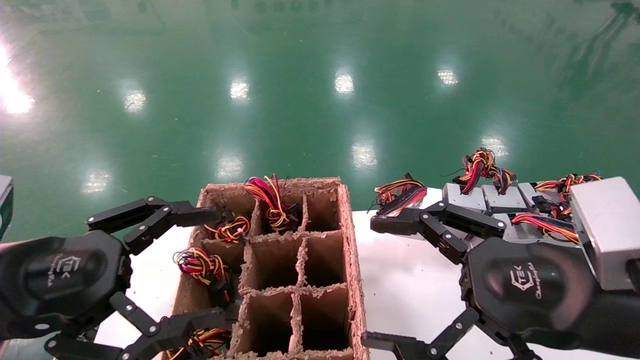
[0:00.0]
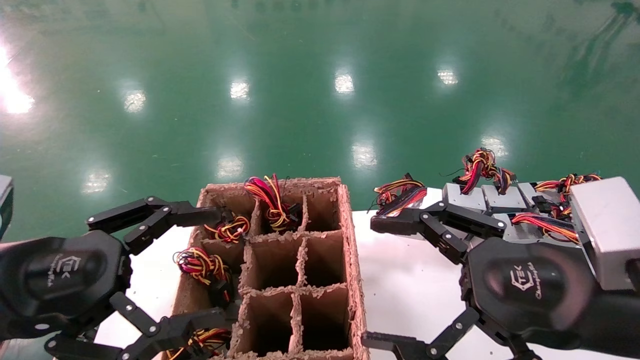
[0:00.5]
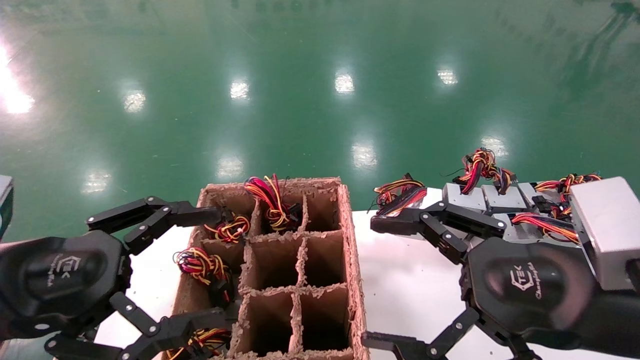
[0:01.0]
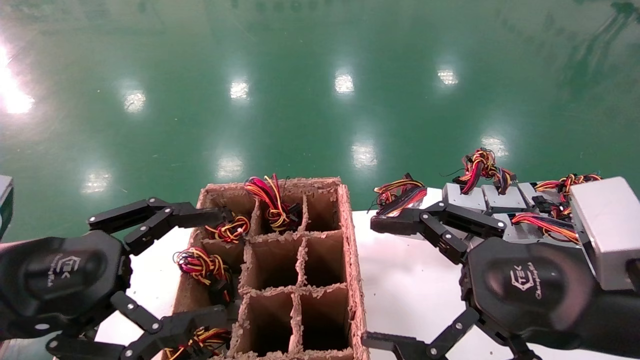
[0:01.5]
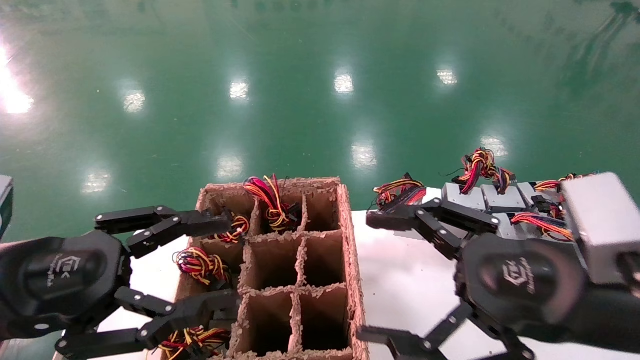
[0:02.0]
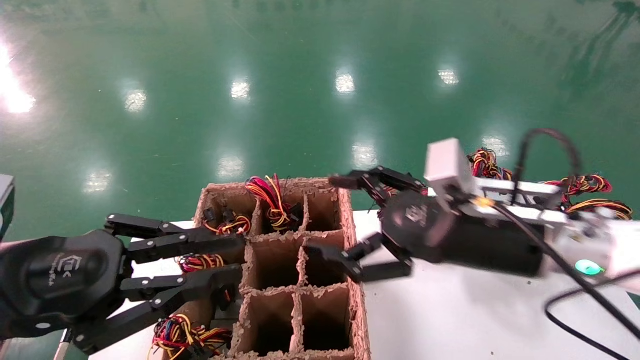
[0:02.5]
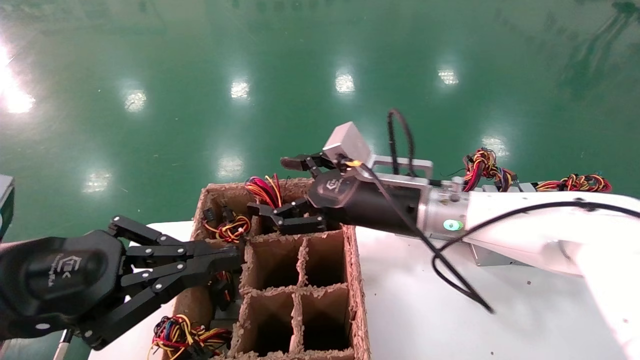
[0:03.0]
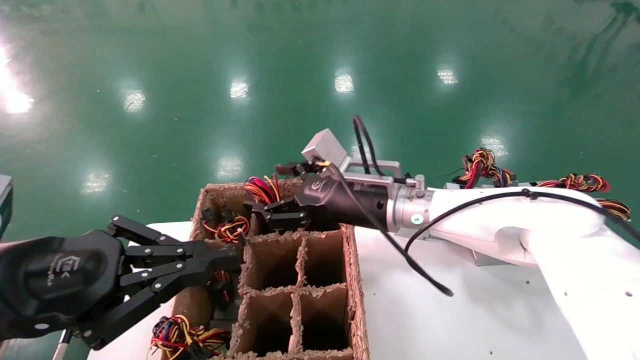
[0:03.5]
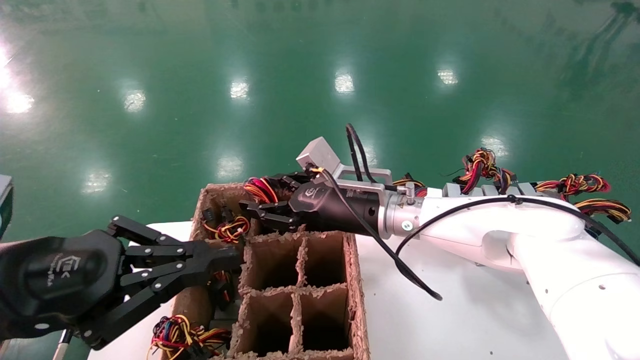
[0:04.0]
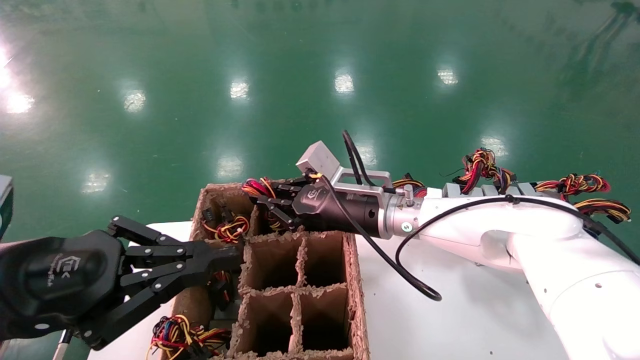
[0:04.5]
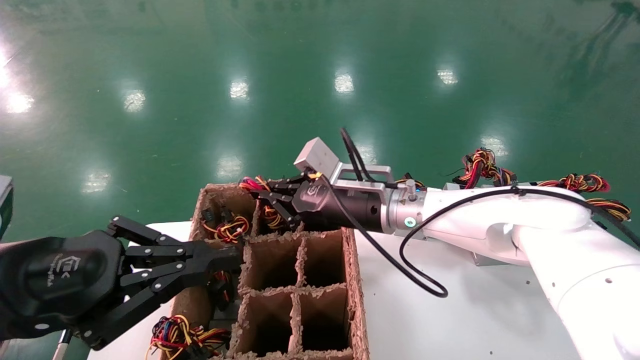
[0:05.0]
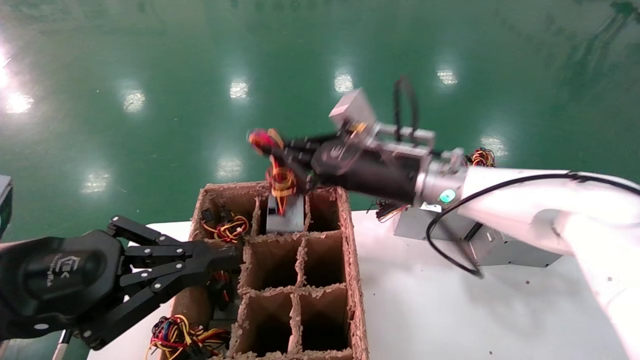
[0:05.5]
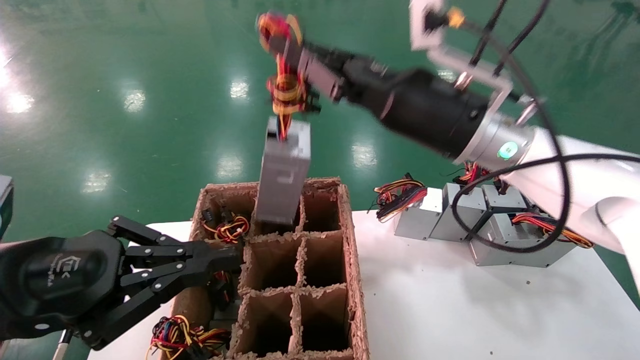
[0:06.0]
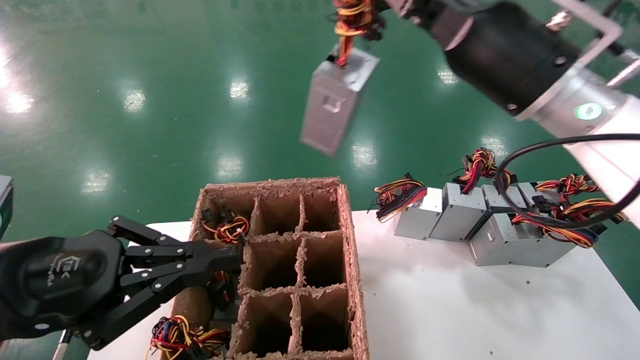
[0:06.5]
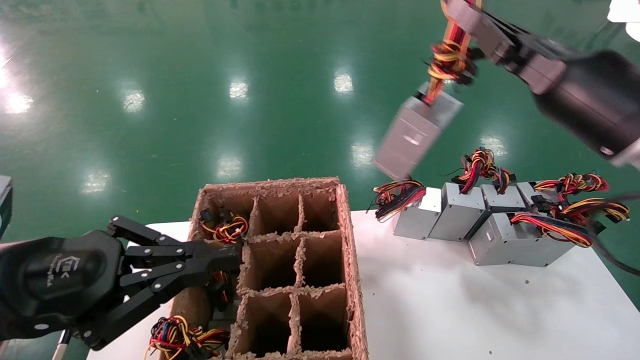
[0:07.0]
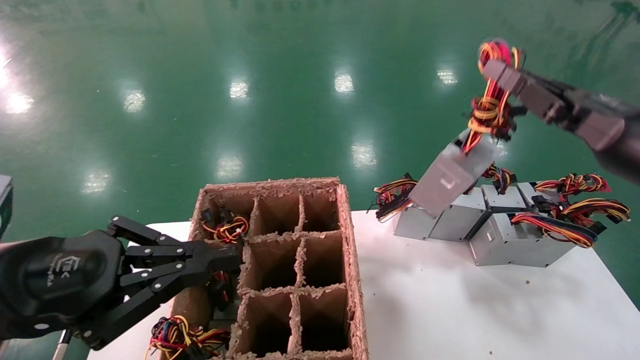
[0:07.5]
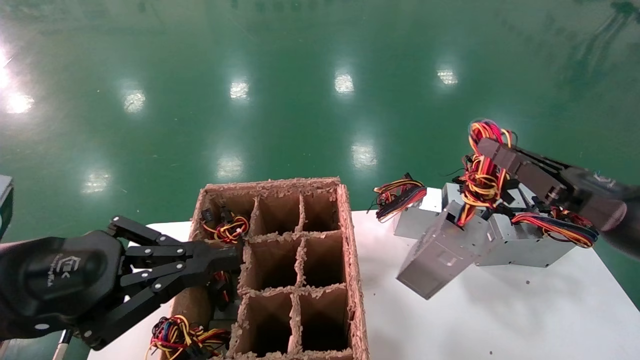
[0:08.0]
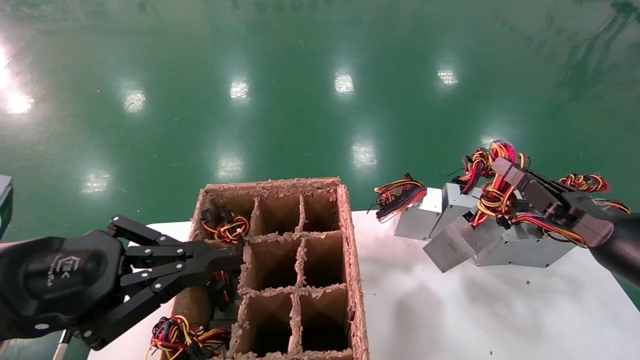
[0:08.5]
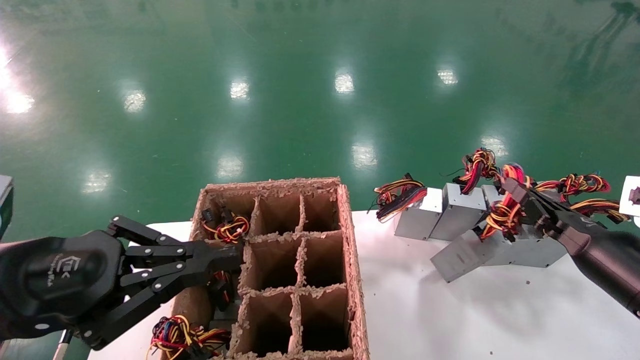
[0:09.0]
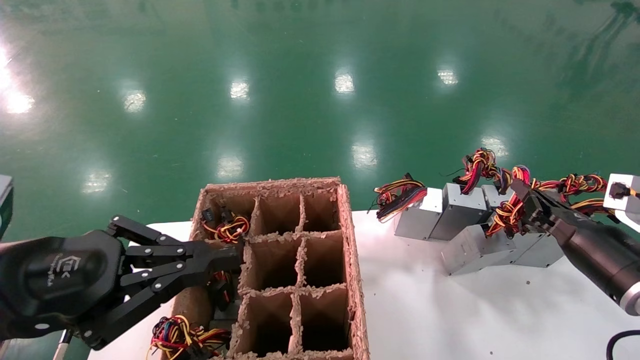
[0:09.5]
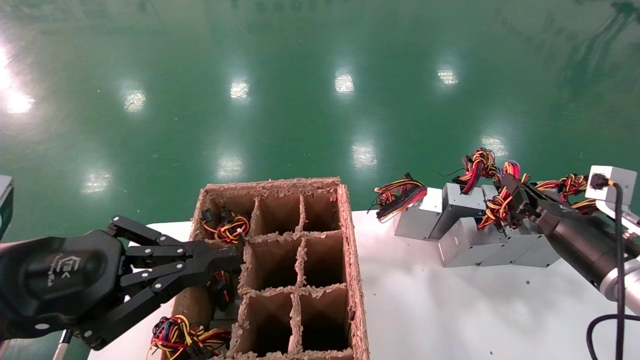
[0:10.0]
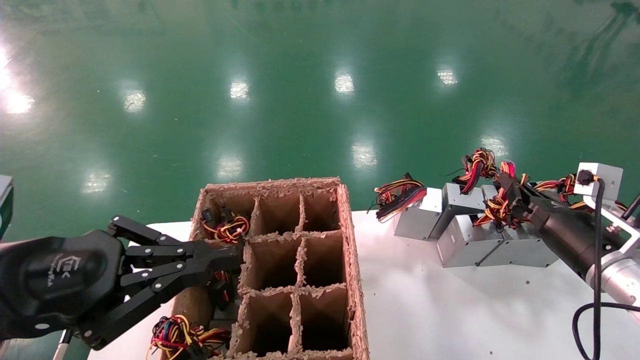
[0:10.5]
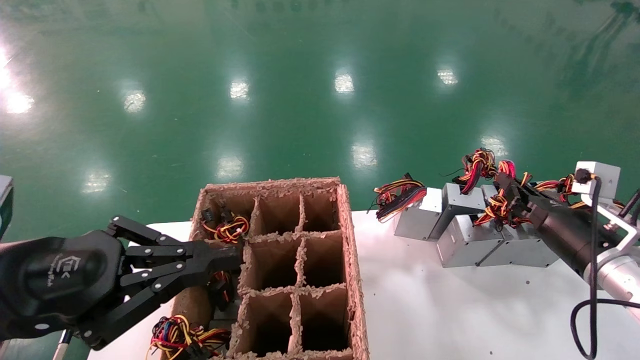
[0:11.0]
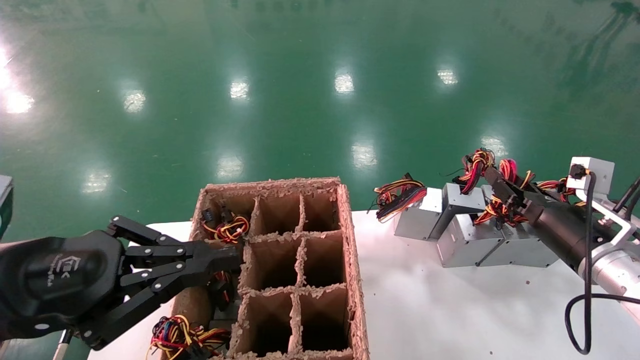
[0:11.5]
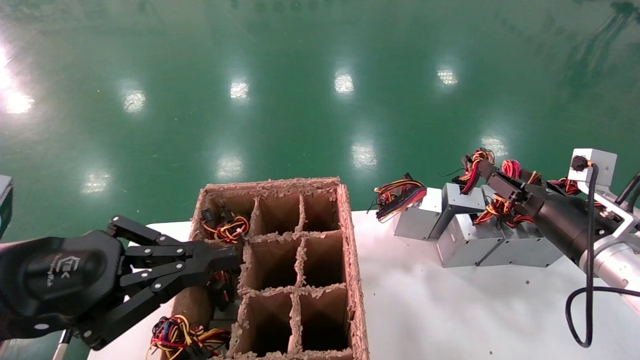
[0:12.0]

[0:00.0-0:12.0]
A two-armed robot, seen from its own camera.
Step, 0:02.5 to 0:04.5: Grab the main unit power supply from the containment box.
0:00.0 to 0:02.0: The grippers move only a little.
0:02.0 to 0:04.0: The left gripper closes up. The right gripper shifts some 25 cm forward and to the left.
0:04.0 to 0:06.0: The right gripper travels upward, backward and to the right by roughly 15 cm, and closes its fingers.
0:06.0 to 0:08.0: The right gripper shifts some 25 cm to the right, downward and backward.
0:08.0 to 0:10.0: The right gripper moves forward and downward, approximately 15 cm.
0:10.0 to 0:12.0: The right gripper opens.

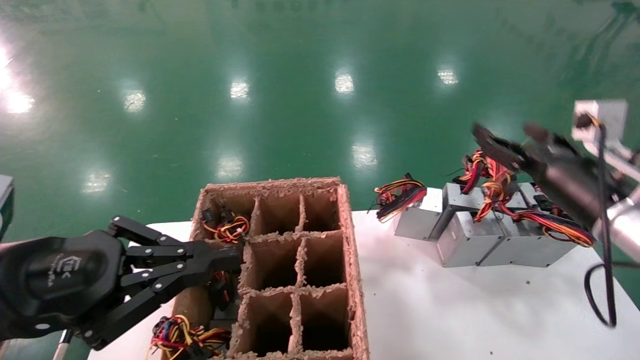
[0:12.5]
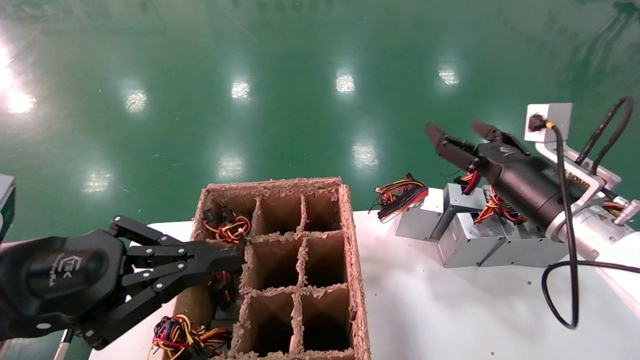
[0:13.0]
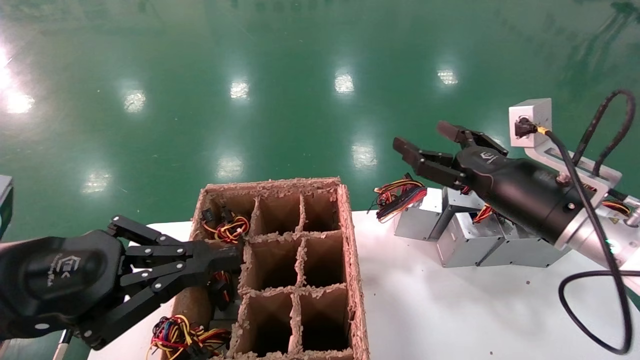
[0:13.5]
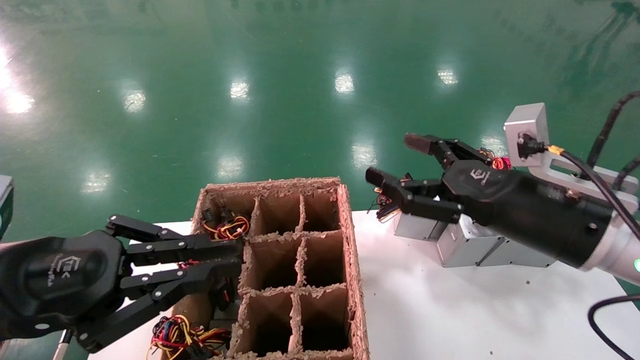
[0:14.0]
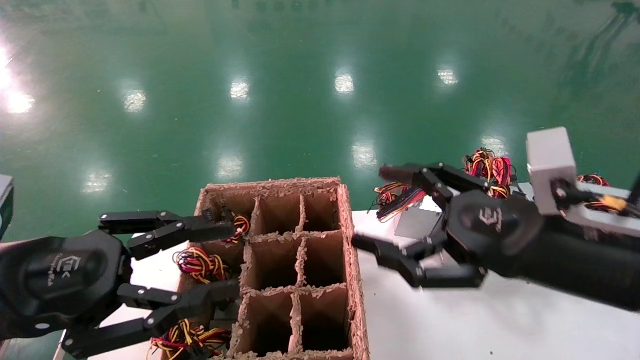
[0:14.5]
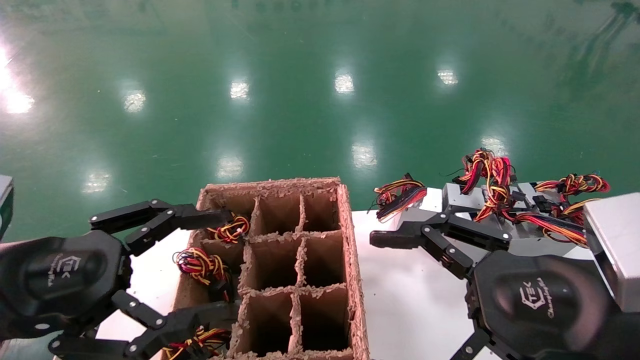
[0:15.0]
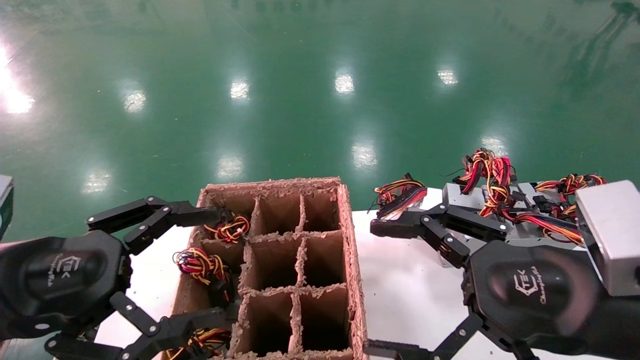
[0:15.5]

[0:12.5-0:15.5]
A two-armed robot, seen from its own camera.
0:12.5 to 0:14.0: The right gripper is displaced to the left and backward by about 10 cm.
0:14.0 to 0:15.5: The right gripper is displaced backward by about 10 cm; the left gripper opens.

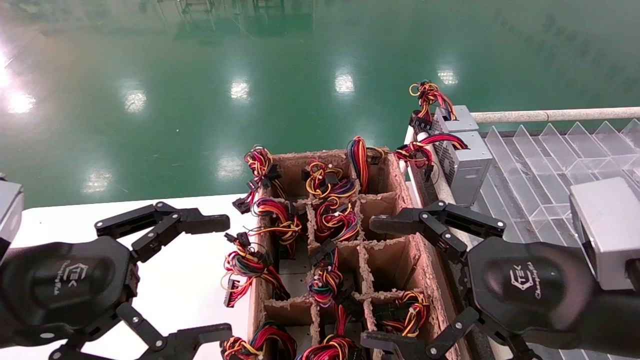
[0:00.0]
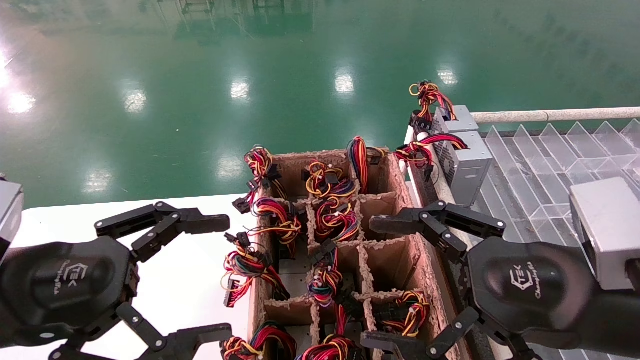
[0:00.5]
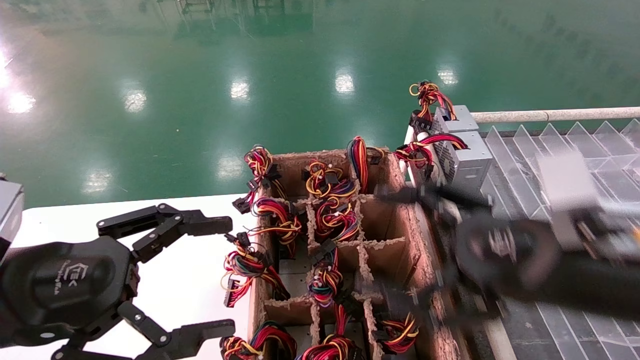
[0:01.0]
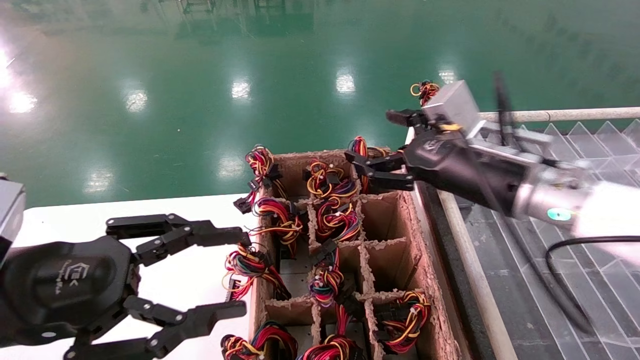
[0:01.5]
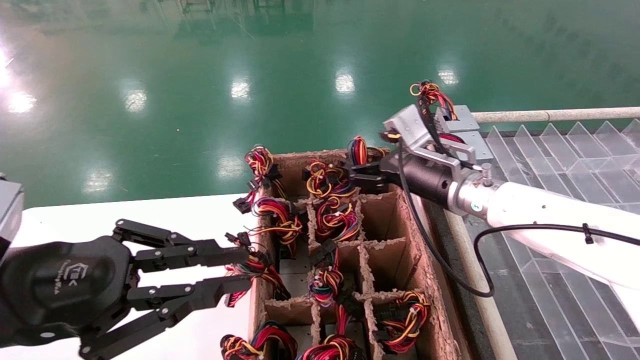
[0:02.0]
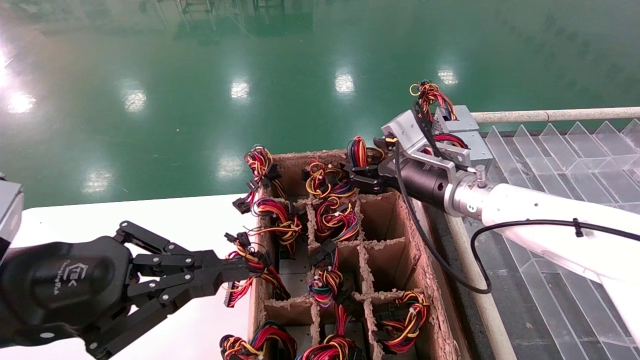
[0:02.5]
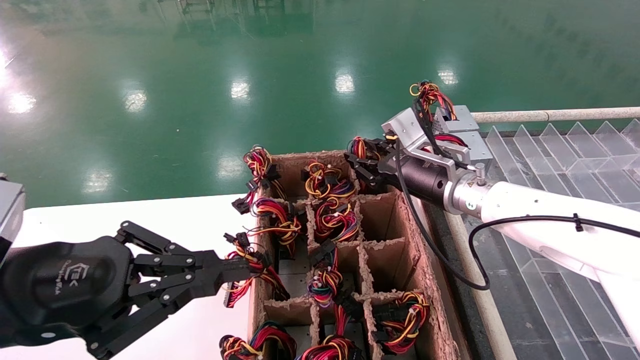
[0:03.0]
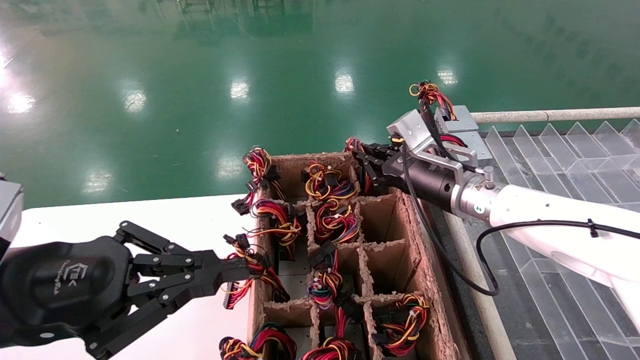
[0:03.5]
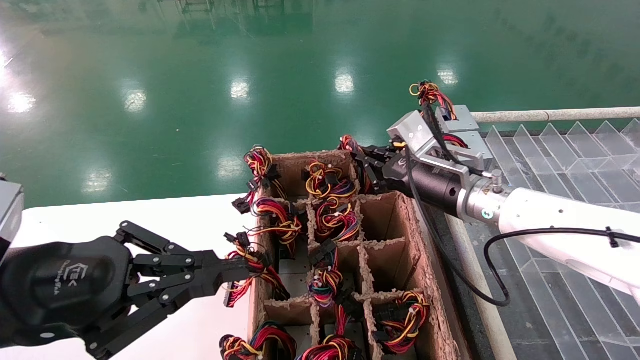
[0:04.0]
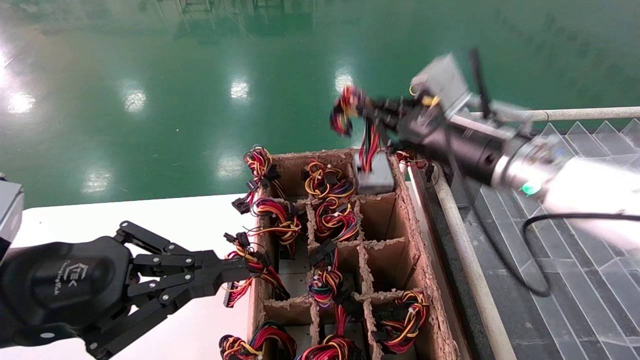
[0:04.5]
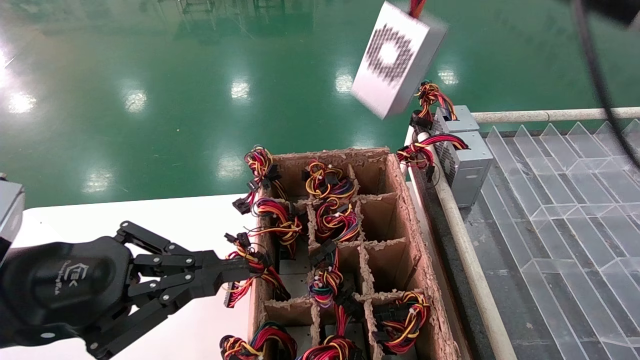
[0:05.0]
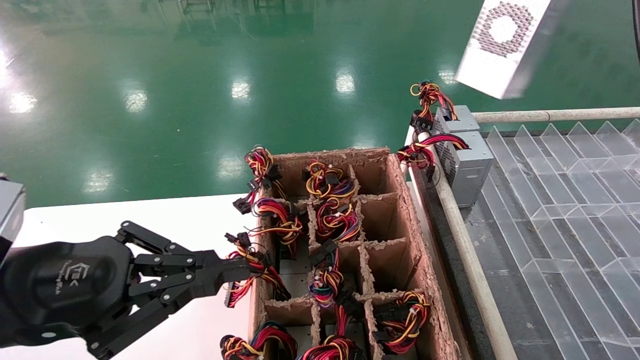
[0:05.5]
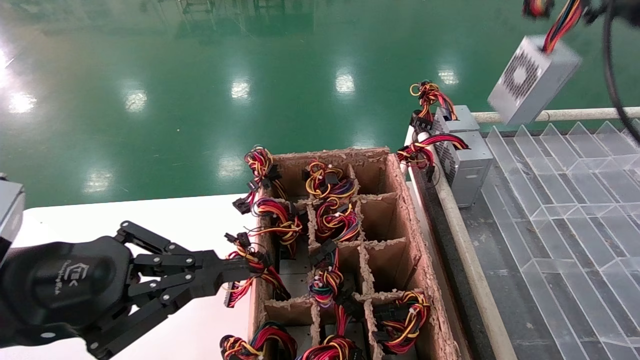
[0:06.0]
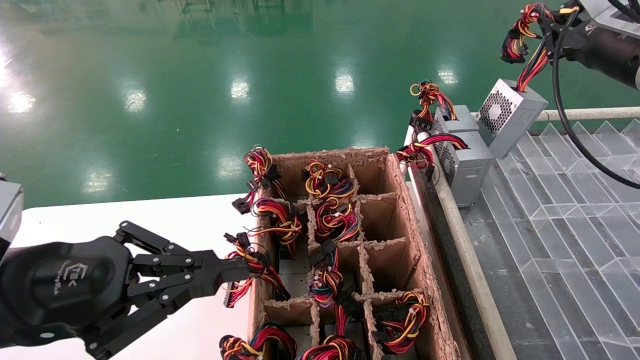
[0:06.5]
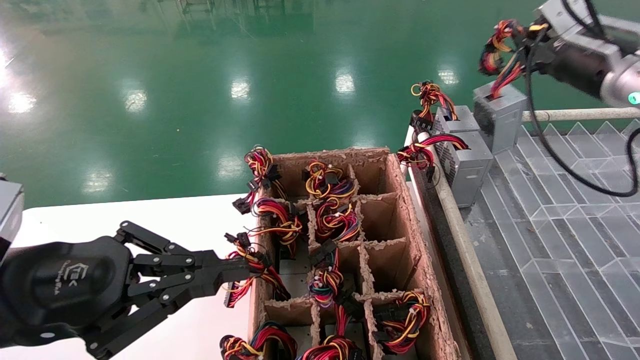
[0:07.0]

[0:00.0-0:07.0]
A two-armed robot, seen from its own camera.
Step, 0:01.5 to 0:03.5: Grab the main unit power supply from the containment box.
0:00.0 to 0:02.0: The left gripper closes; the right gripper heads forward, covering some 20 cm.
0:02.0 to 0:03.5: The right gripper closes.
0:03.5 to 0:05.0: The right gripper shifts about 25 cm upward and backward.
0:05.0 to 0:07.0: The right gripper goes approximately 20 cm forward, to the right and downward.
